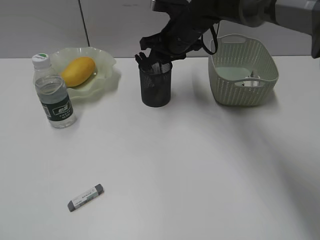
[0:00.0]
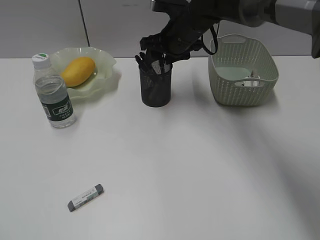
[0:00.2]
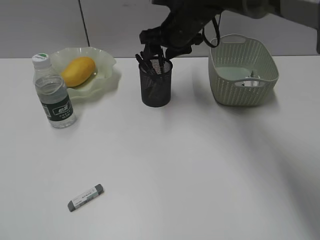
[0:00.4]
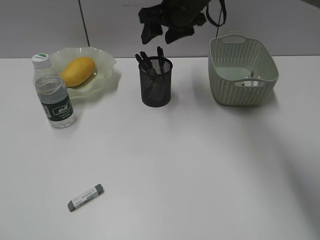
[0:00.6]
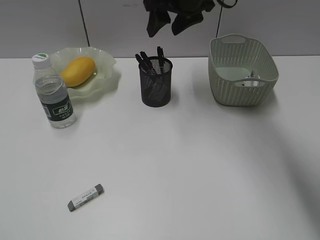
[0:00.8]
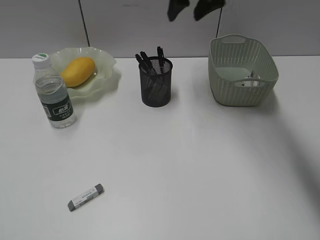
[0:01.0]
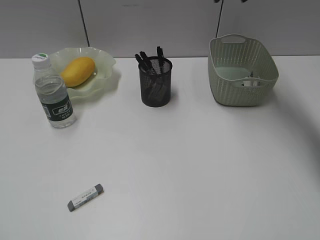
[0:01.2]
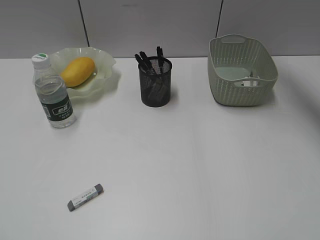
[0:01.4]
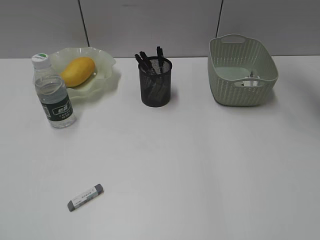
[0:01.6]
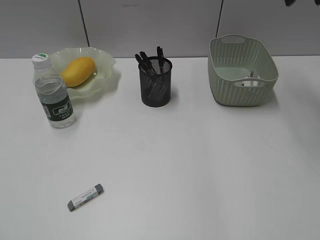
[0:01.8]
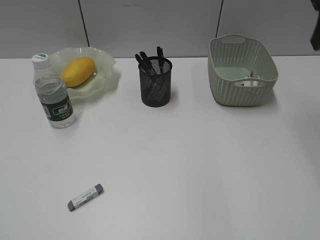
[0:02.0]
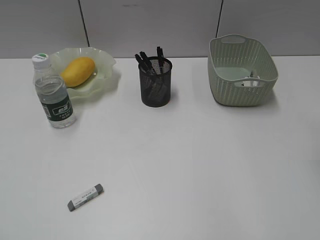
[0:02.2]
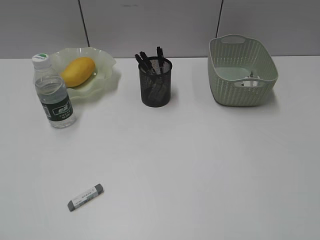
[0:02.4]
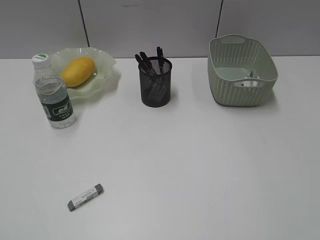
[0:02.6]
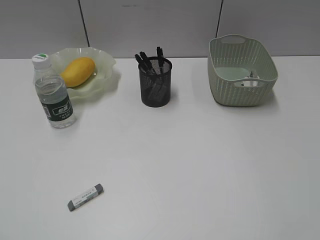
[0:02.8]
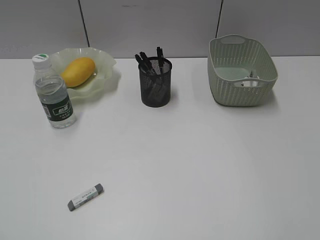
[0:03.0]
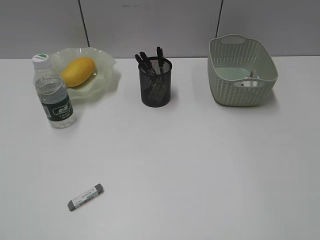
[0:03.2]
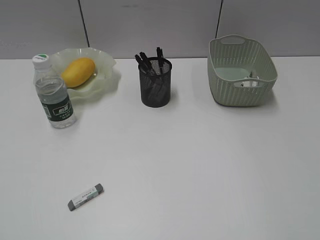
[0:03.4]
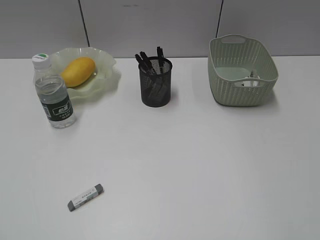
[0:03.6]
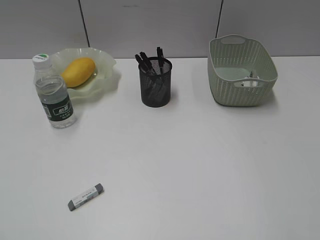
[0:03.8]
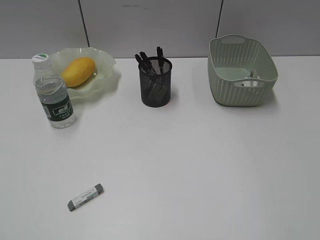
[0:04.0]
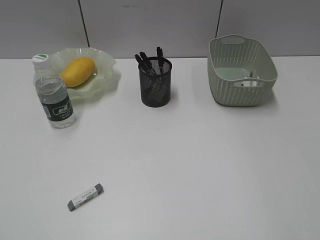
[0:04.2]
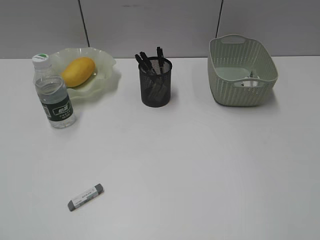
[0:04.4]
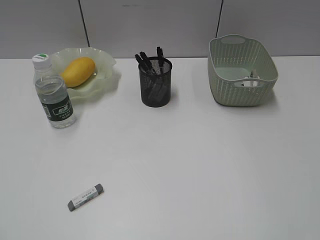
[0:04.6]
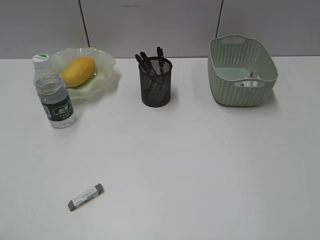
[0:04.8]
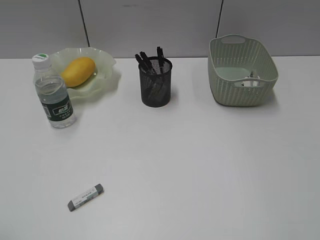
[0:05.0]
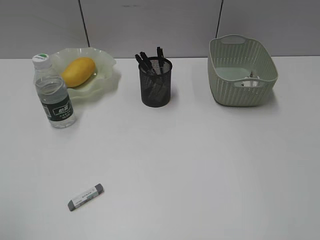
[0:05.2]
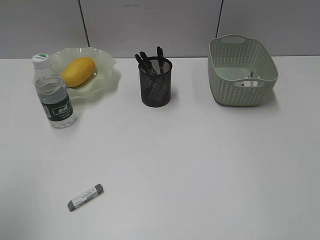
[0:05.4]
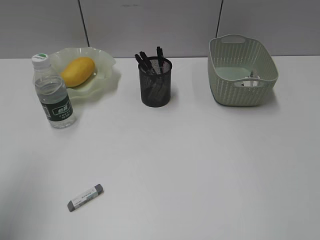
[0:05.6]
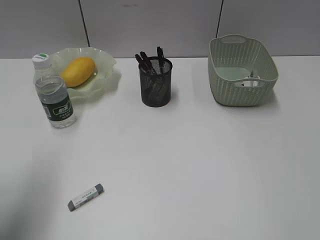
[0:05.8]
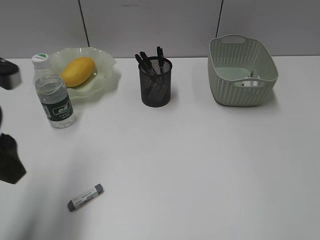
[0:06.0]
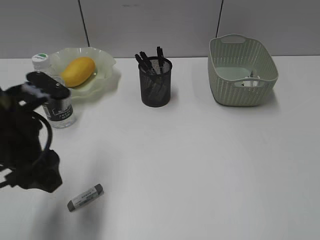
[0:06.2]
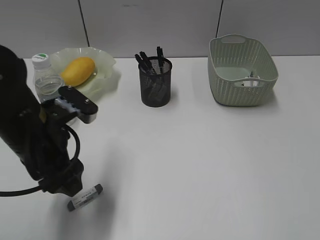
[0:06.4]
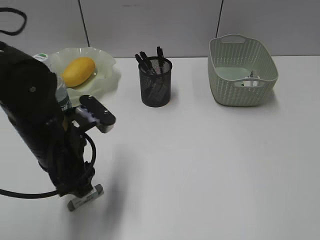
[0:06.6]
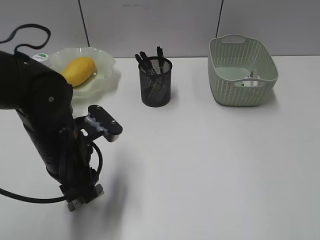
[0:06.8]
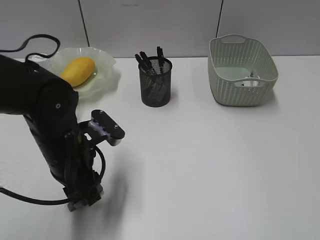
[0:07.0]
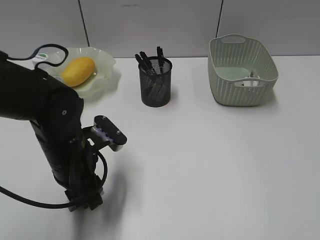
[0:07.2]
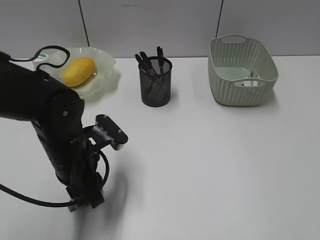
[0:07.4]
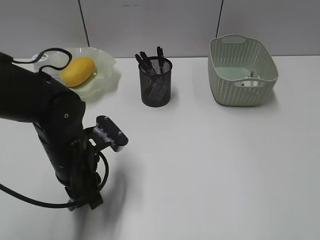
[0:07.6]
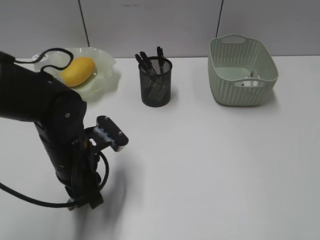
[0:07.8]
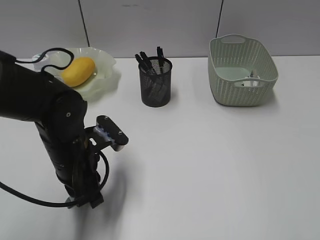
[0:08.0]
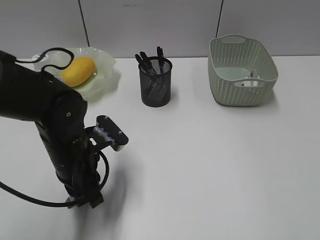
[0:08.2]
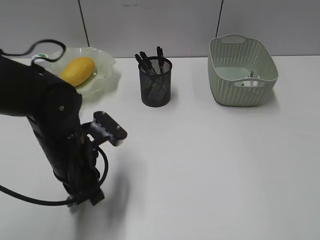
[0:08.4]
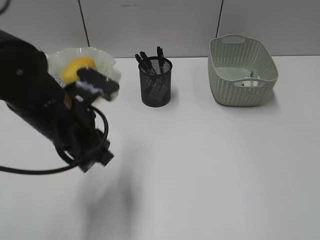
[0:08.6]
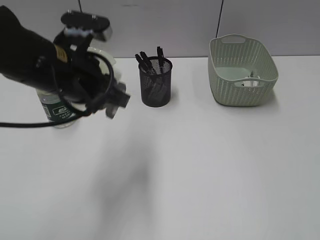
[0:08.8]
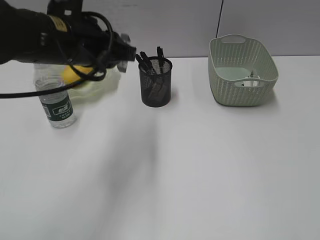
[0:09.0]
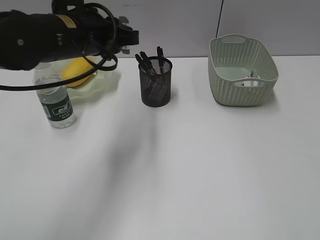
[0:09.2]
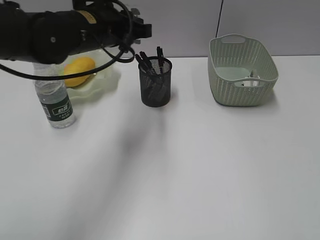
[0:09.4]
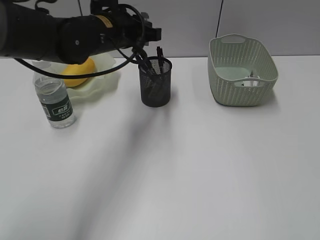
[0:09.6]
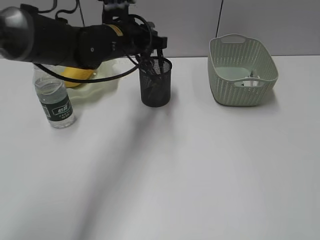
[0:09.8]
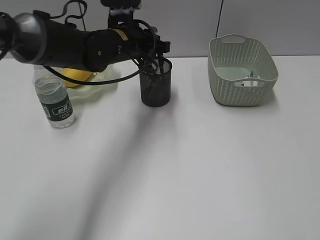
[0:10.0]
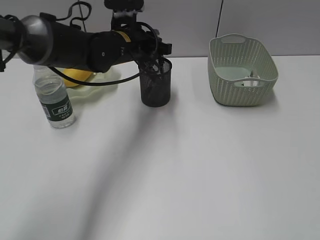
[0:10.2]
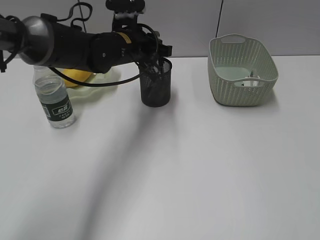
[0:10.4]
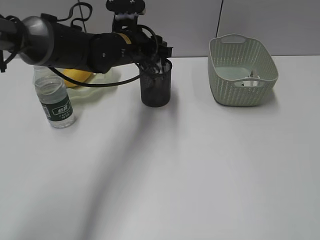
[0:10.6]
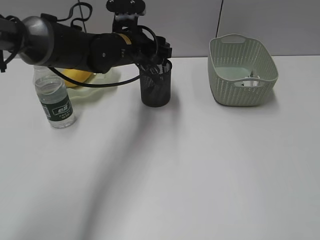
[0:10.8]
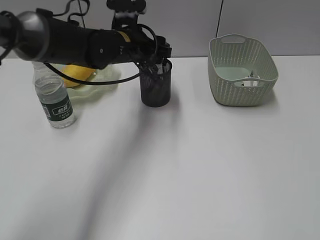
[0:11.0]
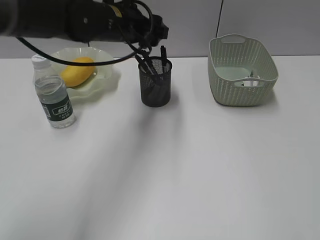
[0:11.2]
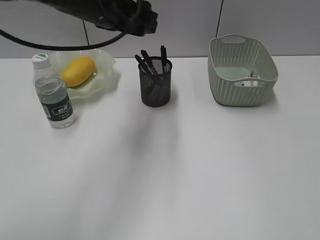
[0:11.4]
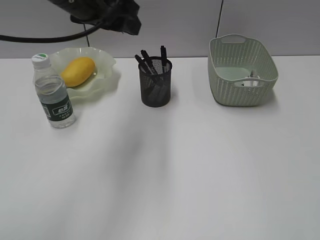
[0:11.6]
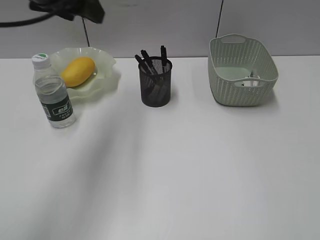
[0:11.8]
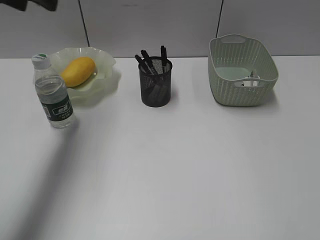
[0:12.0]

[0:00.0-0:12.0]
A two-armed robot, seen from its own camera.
Step, 0.4 to 8.0 s: Grasp the eraser with left gripper.
Step, 8.2 to 11.0 s: Place the eraser in pen holder with left gripper.
0.0 to 1.6 s: The right gripper goes roughly 25 cm to the right and upward, and opens up.
1.6 to 3.0 s: The right gripper shifts roughly 40 cm backward.
4.4 to 6.0 s: The left gripper shifts about 20 cm forward, and opens.
6.0 to 7.6 s: The left gripper is displaced downward and to the right by some 20 cm, and closes.
7.6 to 9.0 s: The left gripper is displaced upward by some 15 cm.
9.0 to 10.4 s: The left gripper heads forward, downward and to the right, covering about 15 cm.
10.4 to 12.0 s: The left gripper heads upward and to the left, covering some 25 cm, and opens up.

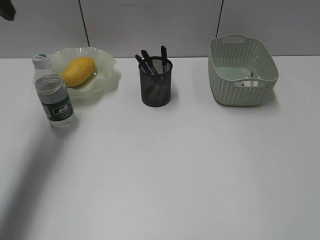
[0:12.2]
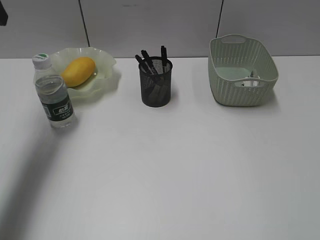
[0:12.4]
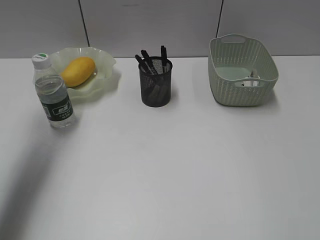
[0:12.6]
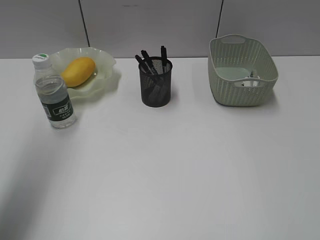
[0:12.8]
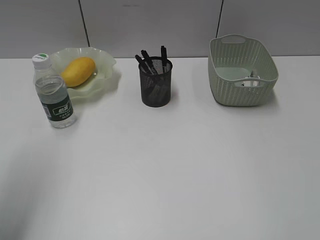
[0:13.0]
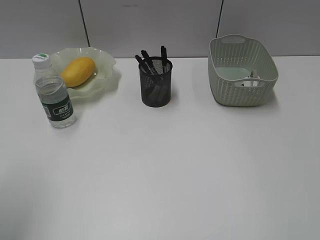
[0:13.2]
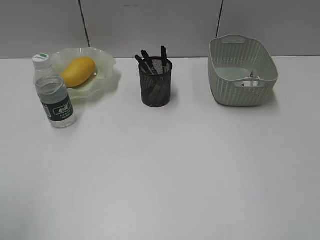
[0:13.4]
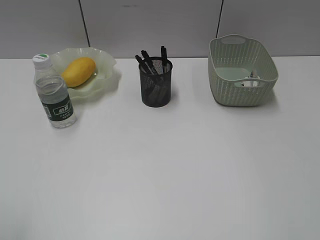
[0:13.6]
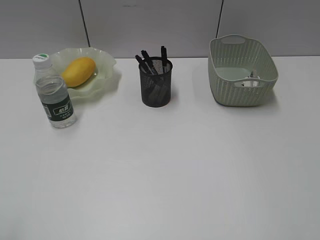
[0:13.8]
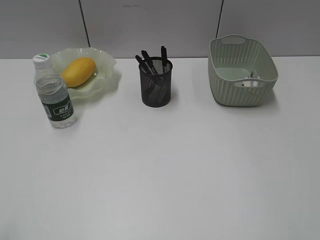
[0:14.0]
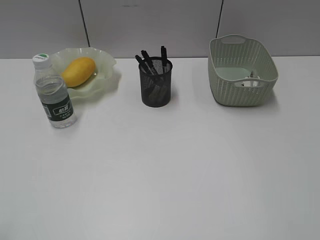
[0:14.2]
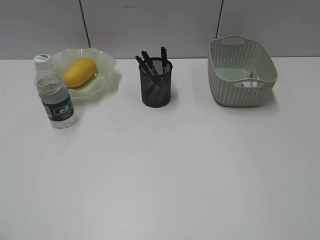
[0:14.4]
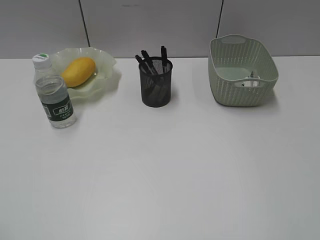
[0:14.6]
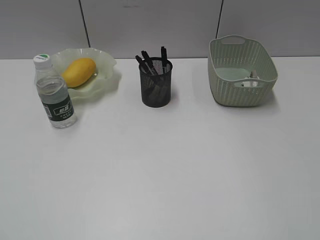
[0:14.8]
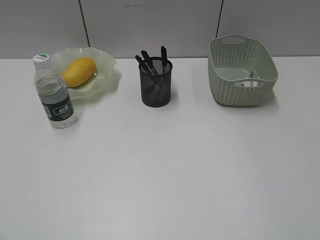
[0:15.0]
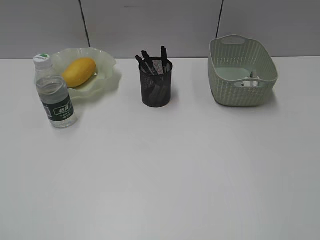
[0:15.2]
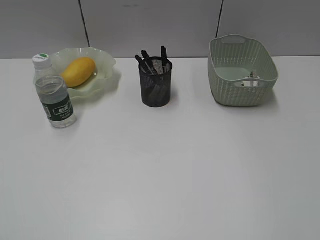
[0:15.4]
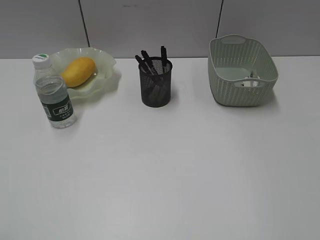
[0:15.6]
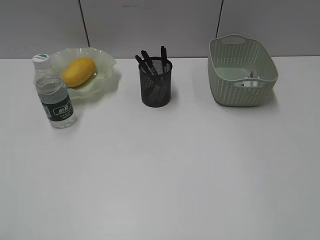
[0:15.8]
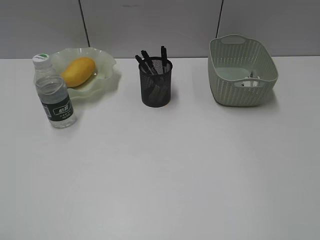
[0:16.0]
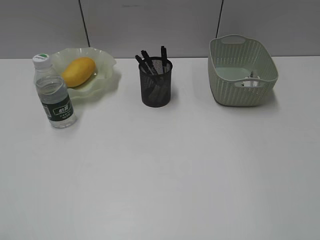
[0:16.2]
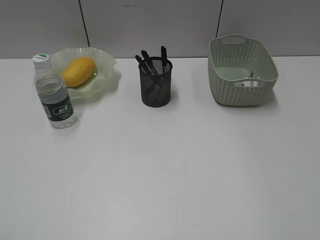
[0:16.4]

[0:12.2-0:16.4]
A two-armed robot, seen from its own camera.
12.2 to 13.6 s: The left gripper shifts about 30 cm backward.

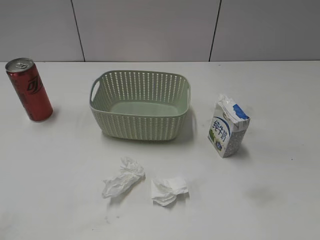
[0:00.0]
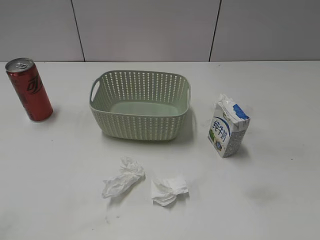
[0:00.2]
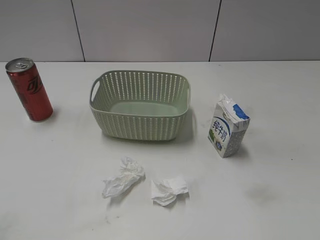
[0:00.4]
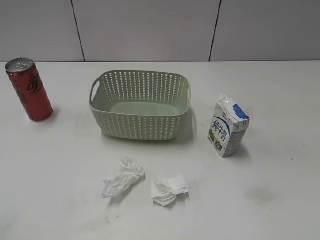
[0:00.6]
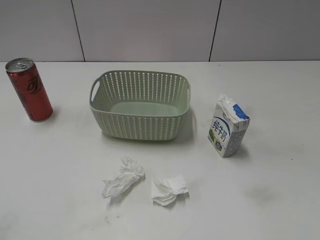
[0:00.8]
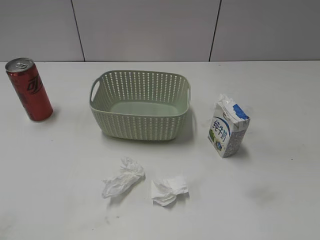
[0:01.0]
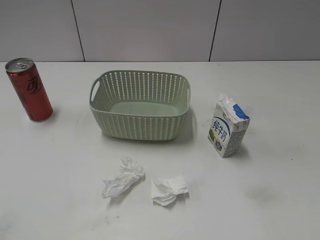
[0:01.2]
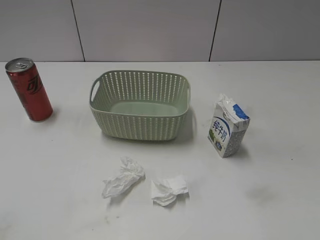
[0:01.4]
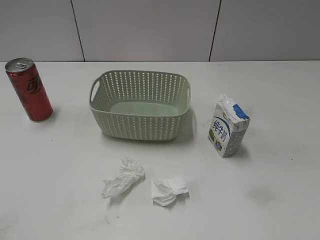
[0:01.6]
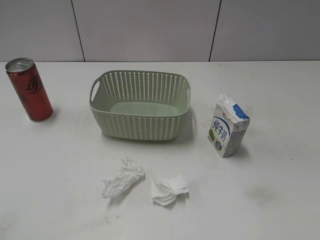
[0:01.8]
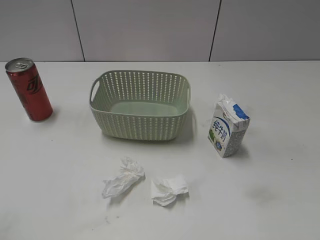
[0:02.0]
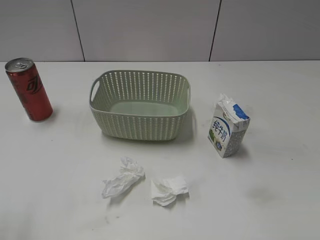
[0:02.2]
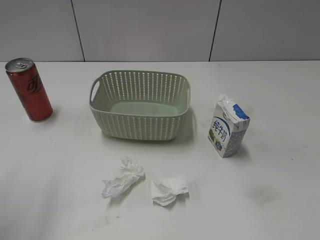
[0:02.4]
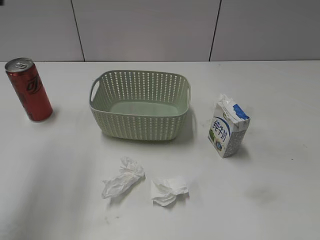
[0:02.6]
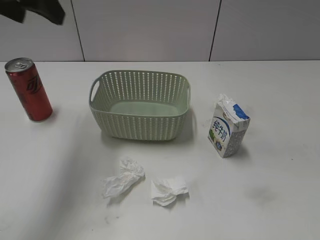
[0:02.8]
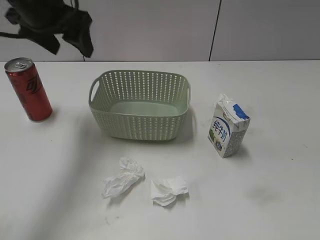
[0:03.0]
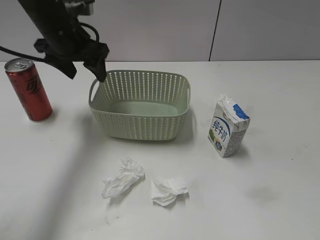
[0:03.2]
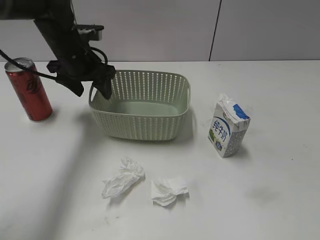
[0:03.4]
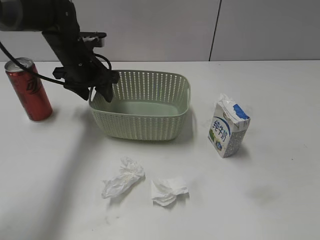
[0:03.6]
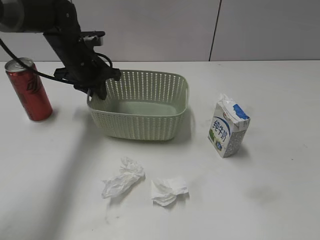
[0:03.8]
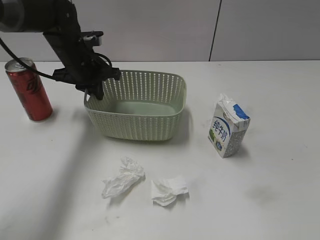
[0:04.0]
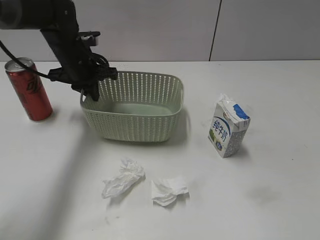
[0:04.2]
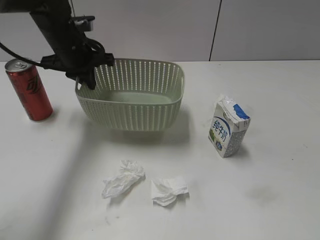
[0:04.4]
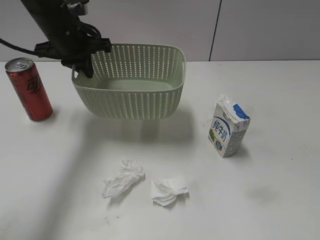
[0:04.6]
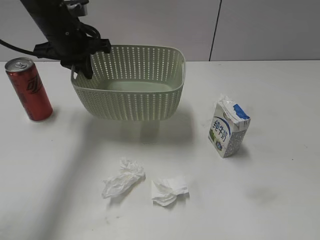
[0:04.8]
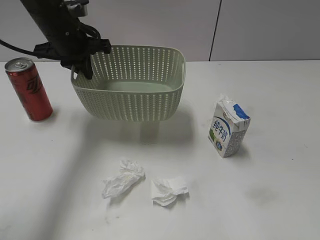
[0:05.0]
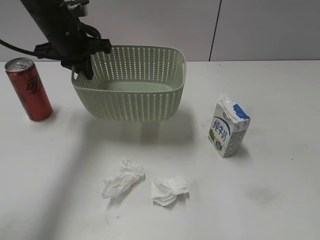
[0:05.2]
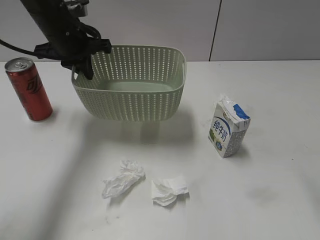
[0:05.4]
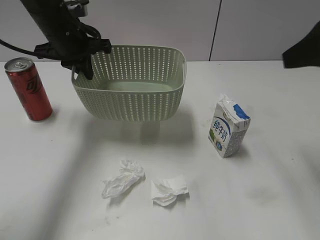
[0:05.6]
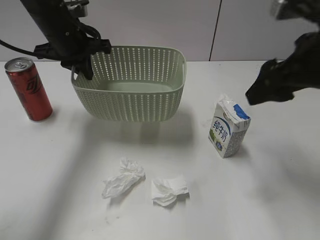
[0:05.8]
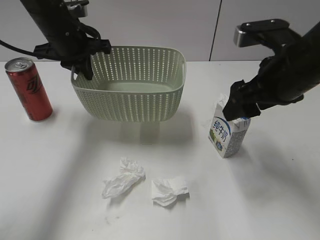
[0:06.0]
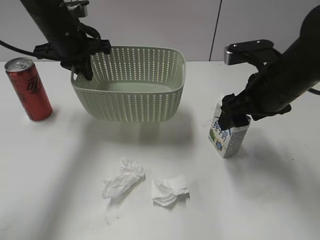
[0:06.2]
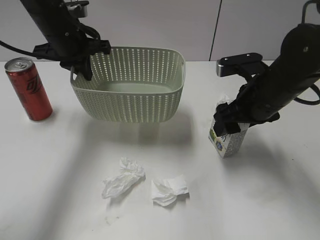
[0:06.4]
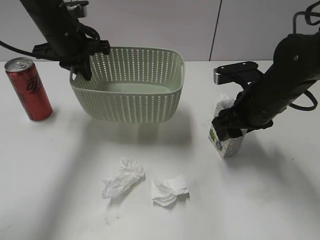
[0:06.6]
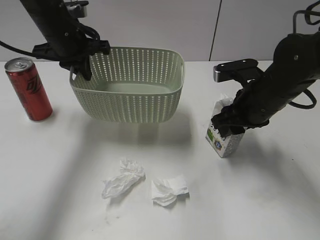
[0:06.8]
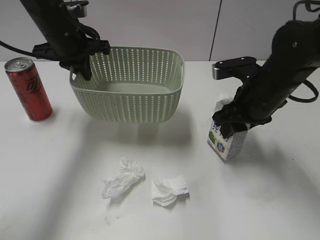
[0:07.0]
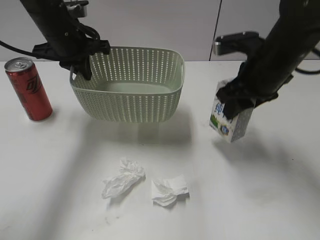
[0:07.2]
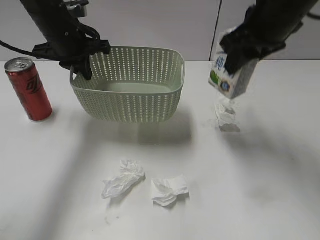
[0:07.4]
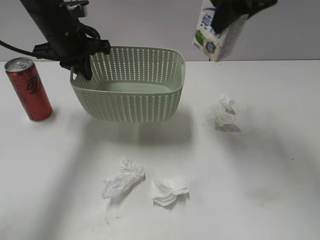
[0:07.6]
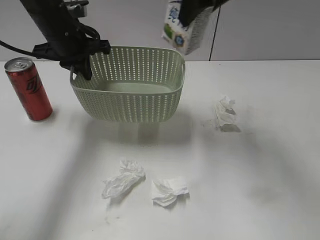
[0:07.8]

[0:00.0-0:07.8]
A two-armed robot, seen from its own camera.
Step, 2.6 to 3.8 s: Grasp the basket with left gripper.
Step, 4.0 to 4.6 s: Lift the basket with left gripper.
Step, 4.8 to 6.8 s: Grasp the milk with right gripper.
1.6 to 3.2 s: The left gripper goes approximately 40 cm forward, and opens up.
3.2 to 4.6 s: The left gripper moves about 10 cm downward and comes back, and closes.
4.6 to 6.2 s: The right gripper heads forward and to the left, covering about 30 cm.
6.2 to 7.8 s: The right gripper is displaced upward, to the left and forward by roughly 20 cm, and closes up.
